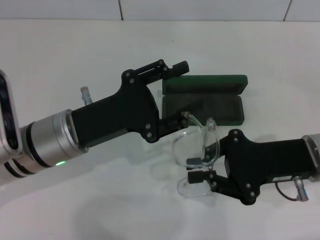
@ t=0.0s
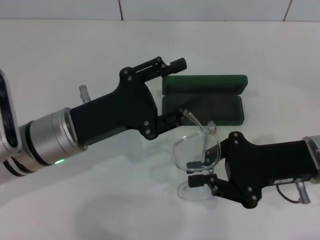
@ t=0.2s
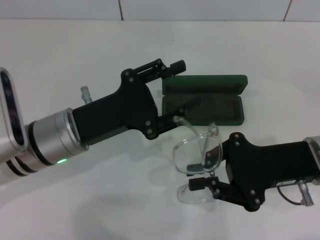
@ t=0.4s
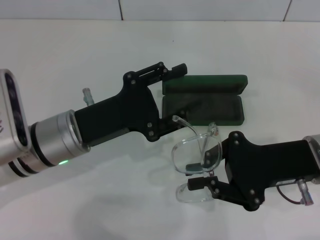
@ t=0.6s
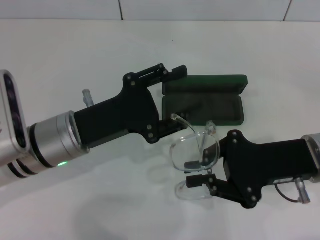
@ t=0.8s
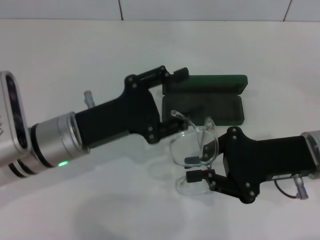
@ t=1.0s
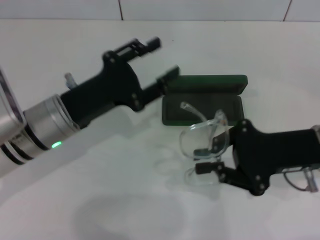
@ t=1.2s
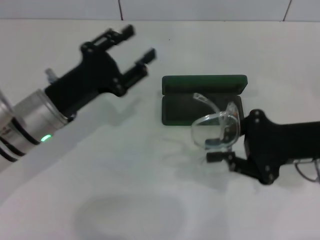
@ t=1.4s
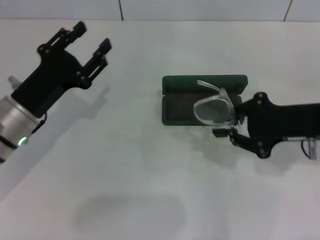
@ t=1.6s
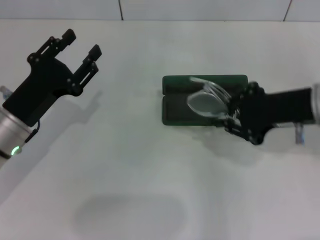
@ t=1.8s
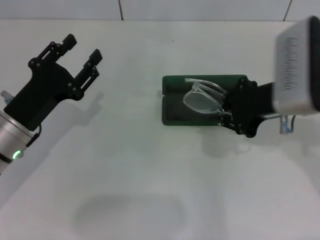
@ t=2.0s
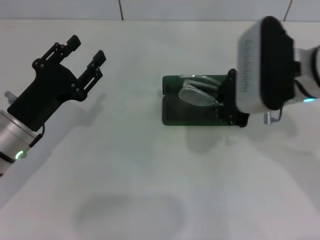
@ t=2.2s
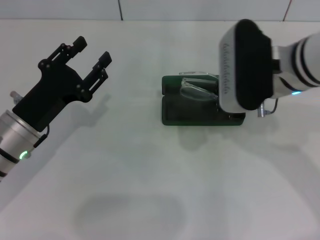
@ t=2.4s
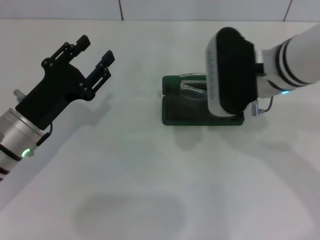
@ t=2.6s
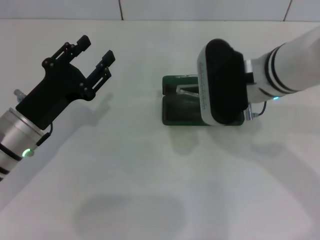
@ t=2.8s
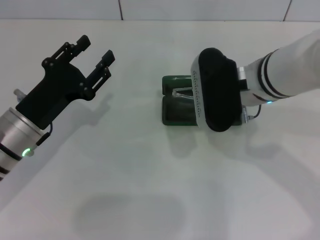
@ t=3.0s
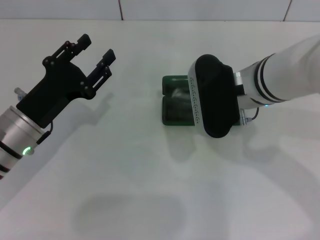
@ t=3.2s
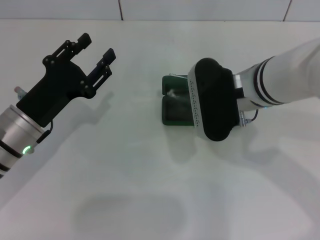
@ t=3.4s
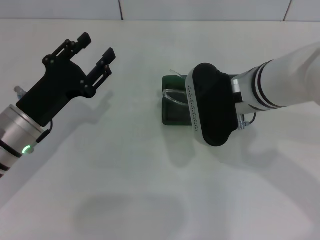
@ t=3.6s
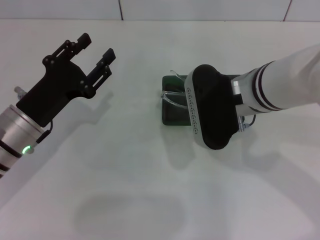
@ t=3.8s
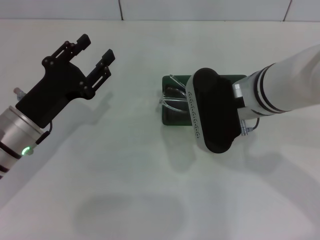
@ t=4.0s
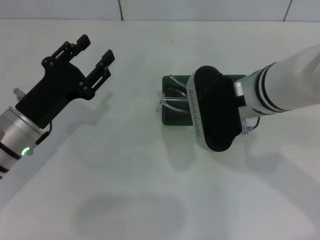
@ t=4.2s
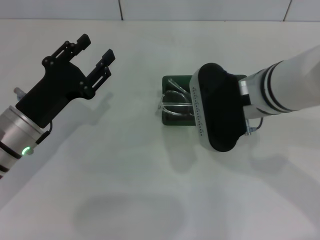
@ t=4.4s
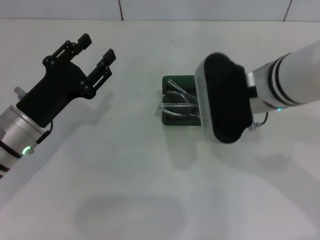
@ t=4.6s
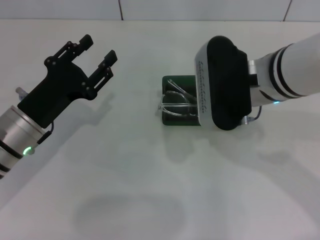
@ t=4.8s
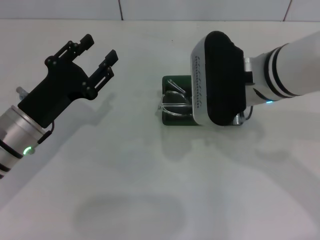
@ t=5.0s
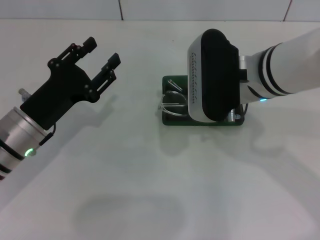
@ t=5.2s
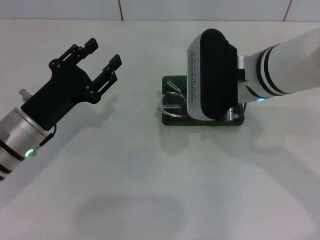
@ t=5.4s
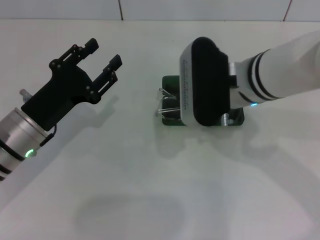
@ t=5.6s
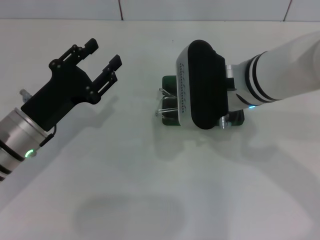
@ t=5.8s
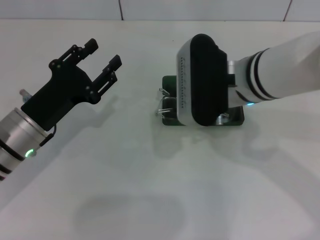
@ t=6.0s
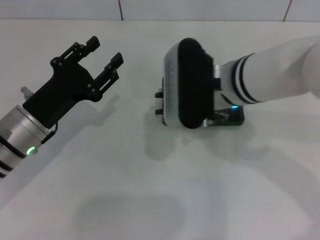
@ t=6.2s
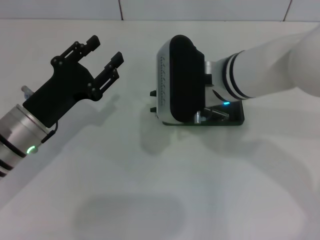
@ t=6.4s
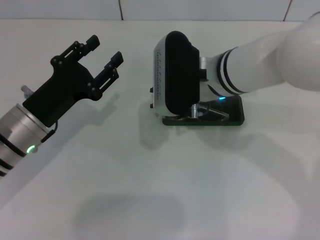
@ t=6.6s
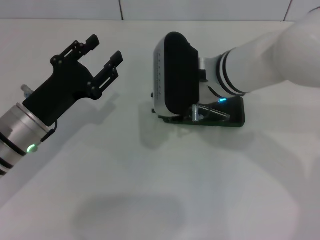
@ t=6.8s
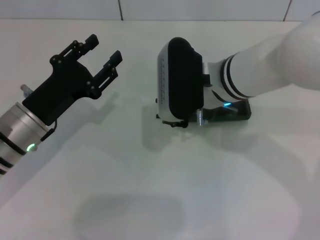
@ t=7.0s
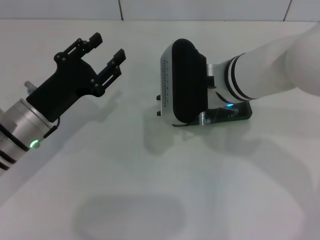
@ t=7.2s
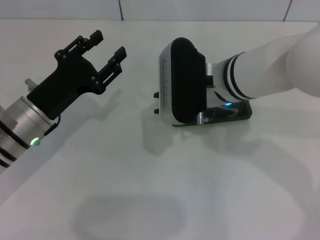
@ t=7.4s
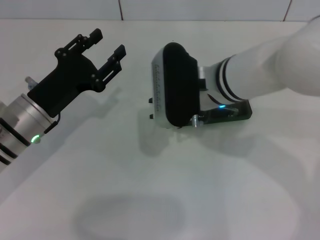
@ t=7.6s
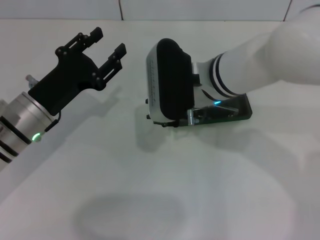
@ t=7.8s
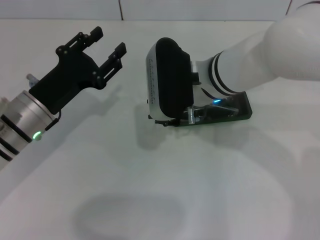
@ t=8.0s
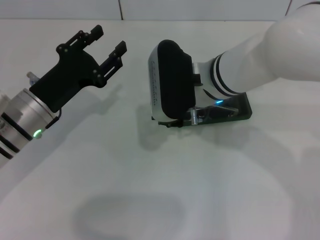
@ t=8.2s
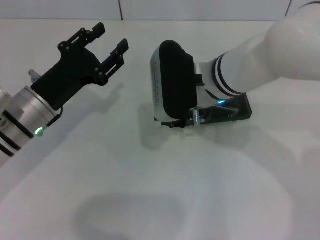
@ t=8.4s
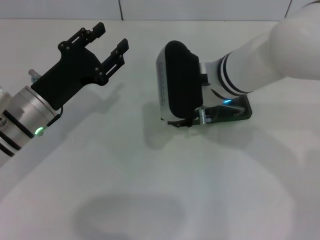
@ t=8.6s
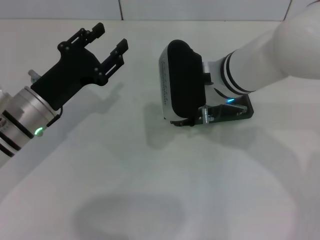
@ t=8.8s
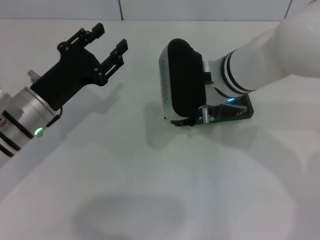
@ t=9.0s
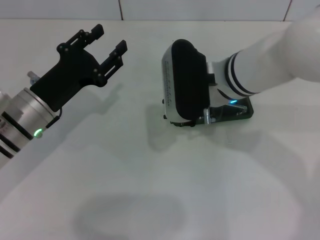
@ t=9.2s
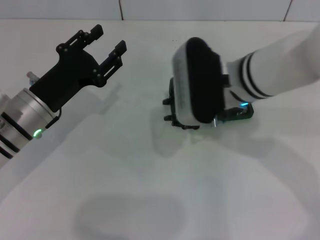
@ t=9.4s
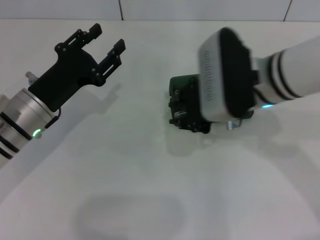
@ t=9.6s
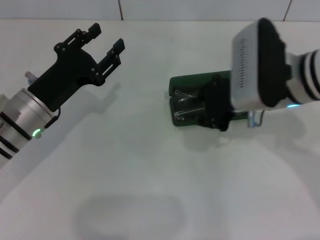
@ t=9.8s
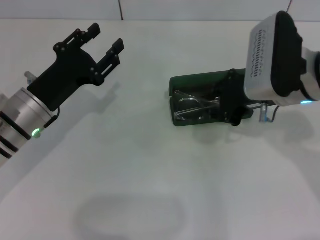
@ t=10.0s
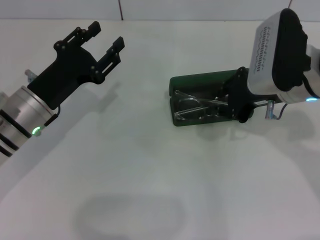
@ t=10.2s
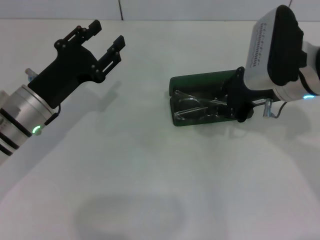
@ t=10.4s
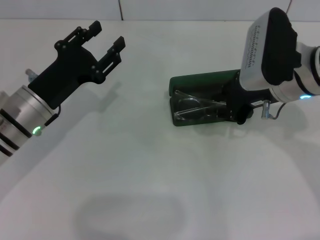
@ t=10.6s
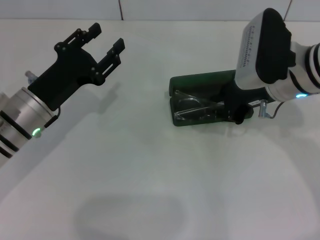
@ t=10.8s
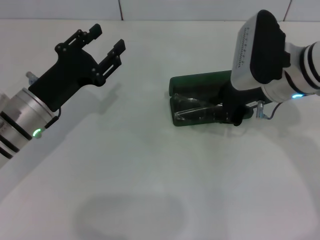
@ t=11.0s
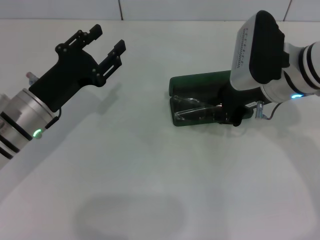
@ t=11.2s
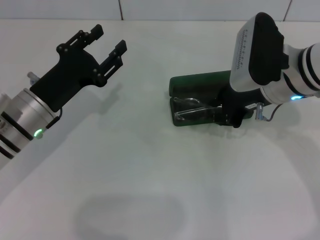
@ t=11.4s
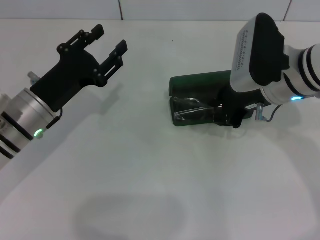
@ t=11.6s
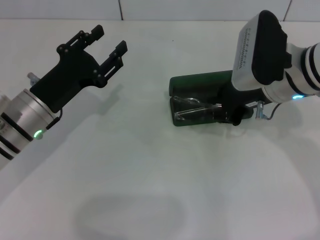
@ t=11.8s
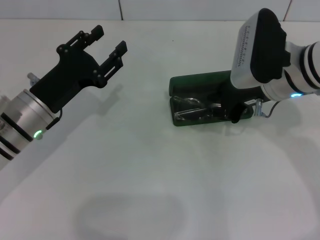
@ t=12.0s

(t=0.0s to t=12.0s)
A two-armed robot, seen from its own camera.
t=0.0s - t=1.6s: The right gripper shifts by some 5 cm, while the left gripper heads to the left, covering about 5 cm.
t=1.6s - t=3.0s: The right gripper heads to the left, covering about 15 cm.
t=3.0s - t=7.6s: There are only small adjustments of the grippers.
t=7.6s - t=9.0s: The grippers make only small movements.
t=9.0s - t=10.4s: The right gripper travels to the right by some 10 cm.
t=10.4s - t=12.0s: The grippers move only a little.

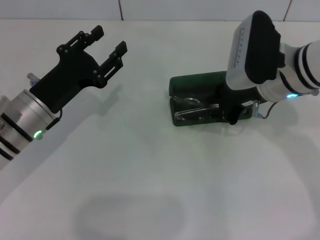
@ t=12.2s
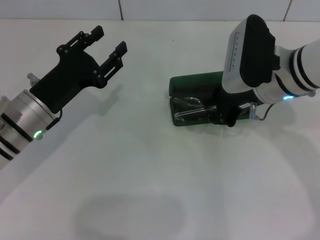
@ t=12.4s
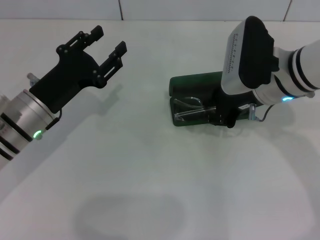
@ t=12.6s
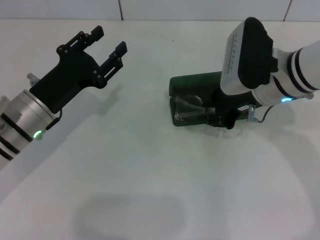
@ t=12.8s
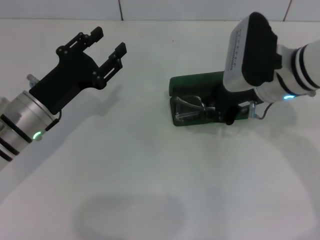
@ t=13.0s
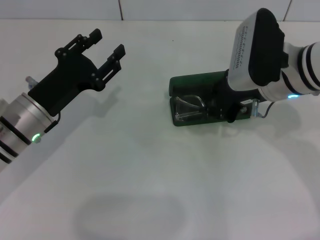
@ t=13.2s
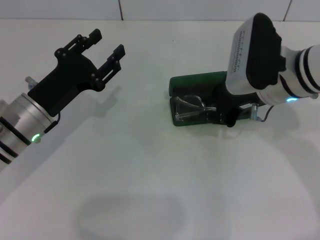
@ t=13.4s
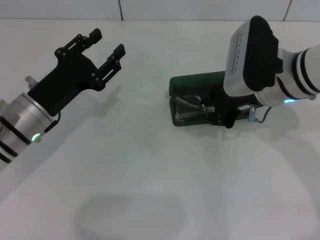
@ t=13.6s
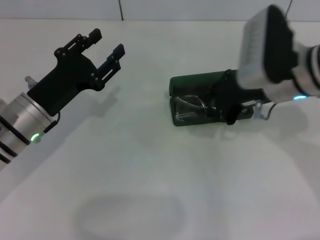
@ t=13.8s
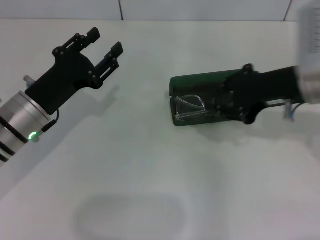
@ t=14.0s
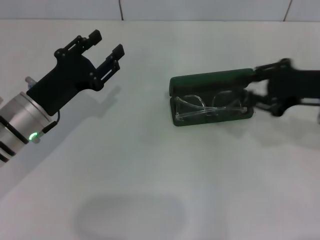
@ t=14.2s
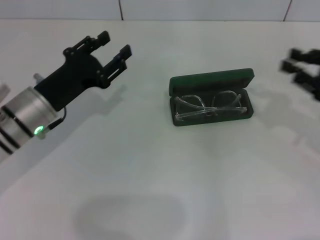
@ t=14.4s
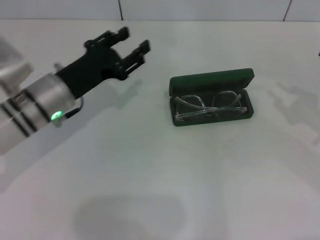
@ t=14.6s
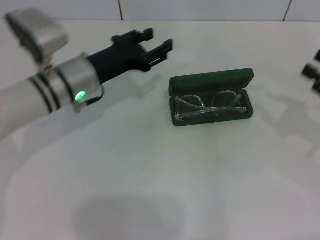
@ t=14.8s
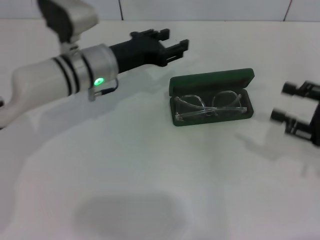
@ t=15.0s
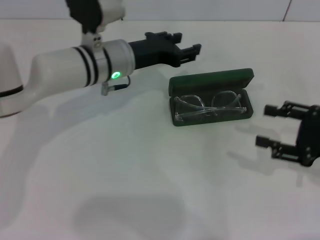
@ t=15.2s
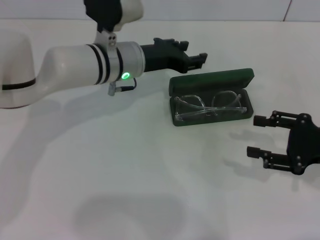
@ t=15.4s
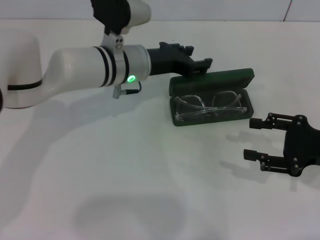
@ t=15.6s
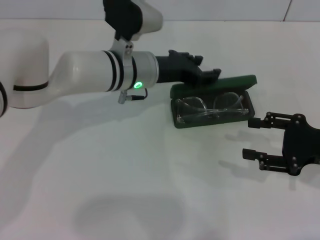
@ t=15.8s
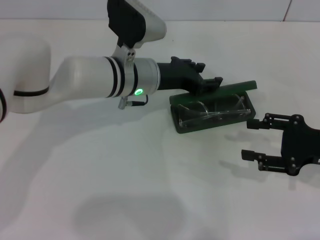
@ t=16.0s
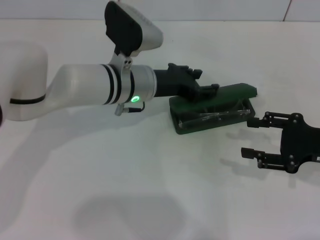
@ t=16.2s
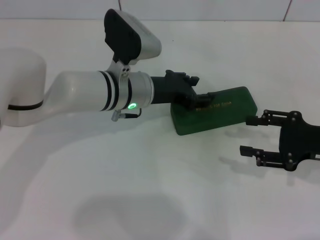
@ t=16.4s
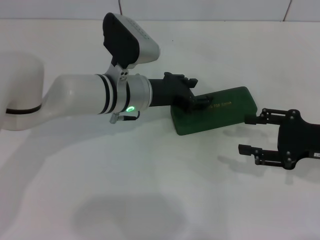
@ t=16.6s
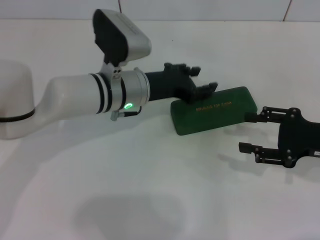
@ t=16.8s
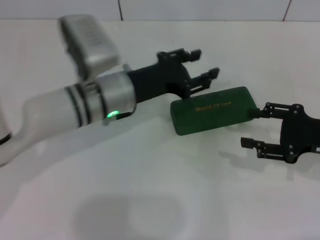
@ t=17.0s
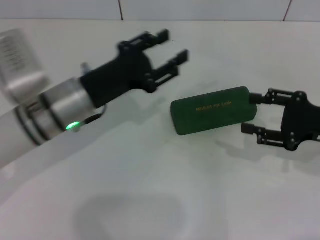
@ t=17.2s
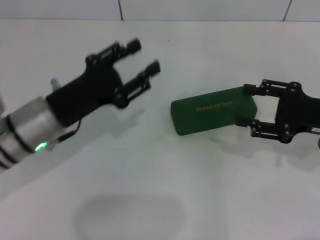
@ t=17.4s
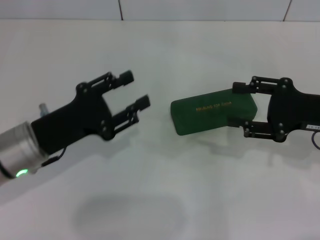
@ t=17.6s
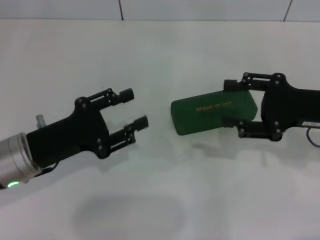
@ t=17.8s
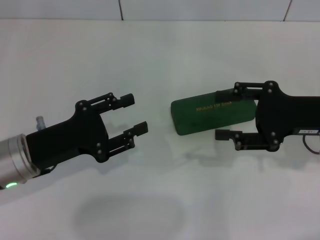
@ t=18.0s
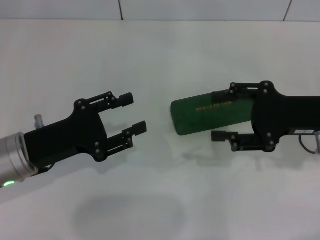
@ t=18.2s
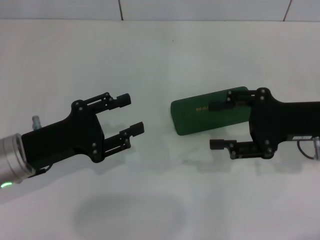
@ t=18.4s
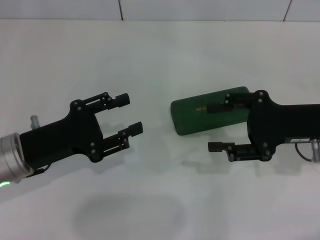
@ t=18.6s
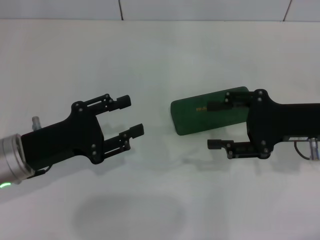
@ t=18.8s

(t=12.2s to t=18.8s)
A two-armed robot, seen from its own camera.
Step, t=13.8s - t=16.4s: Close the glasses case with your left hand.
t=12.2s - t=13.8s: The grippers stay close to where they were, moving slightly.
t=13.8s - t=15.4s: The right gripper is displaced to the right, downward and backward by approximately 20 cm, and opens up. Meanwhile the left gripper travels to the right and forward by some 15 cm.
t=15.4s - t=17.2s: The left gripper moves backward and to the left, roughly 10 cm.
t=17.2s - t=18.8s: The left gripper is displaced to the left and backward by roughly 10 cm, while the right gripper shifts some 5 cm to the left.
